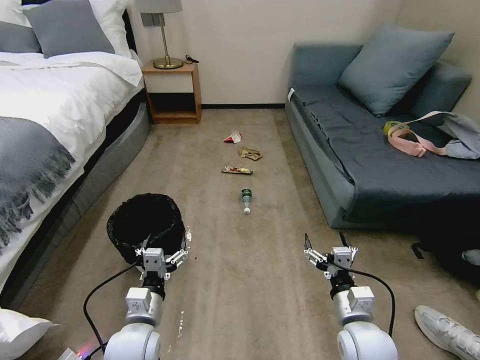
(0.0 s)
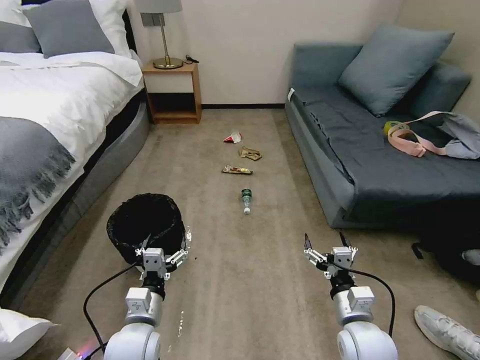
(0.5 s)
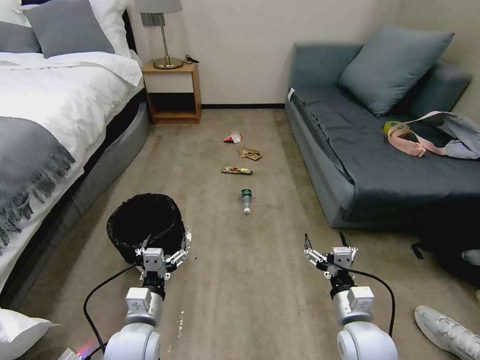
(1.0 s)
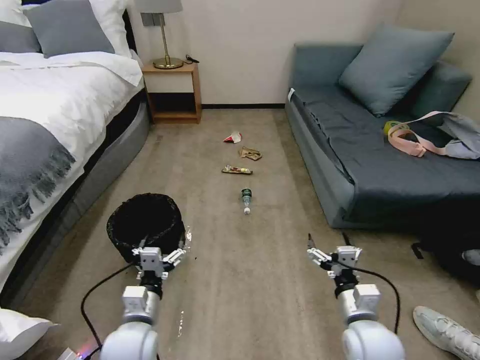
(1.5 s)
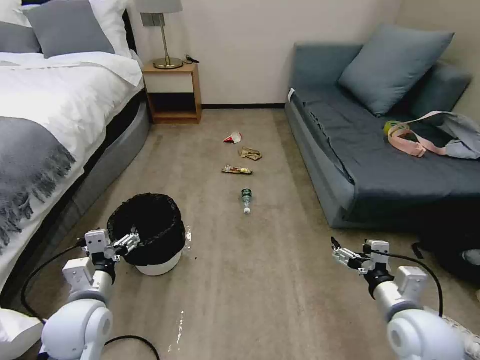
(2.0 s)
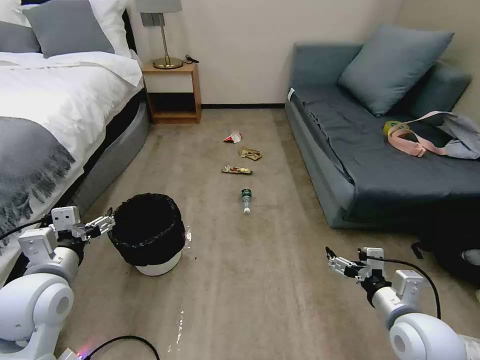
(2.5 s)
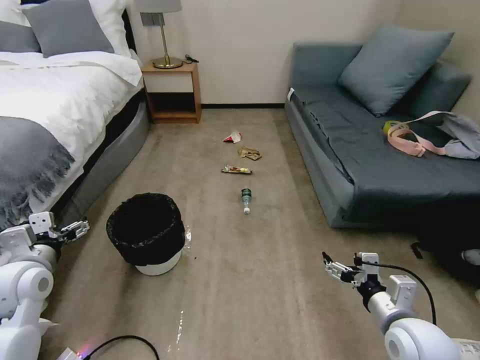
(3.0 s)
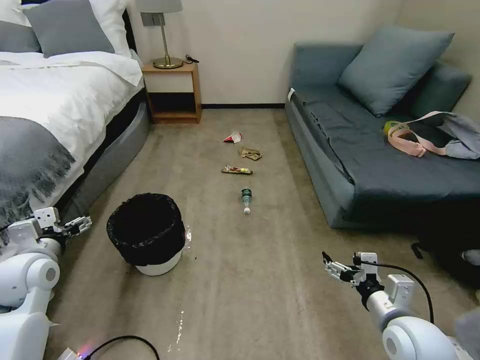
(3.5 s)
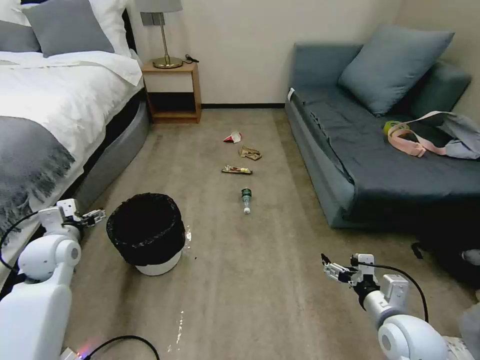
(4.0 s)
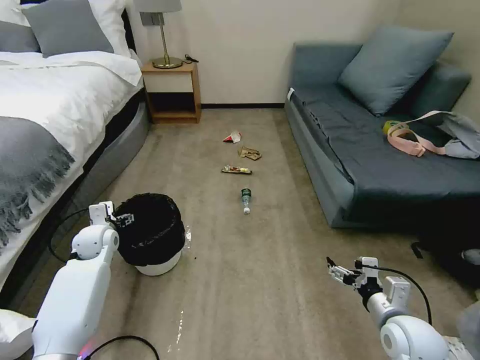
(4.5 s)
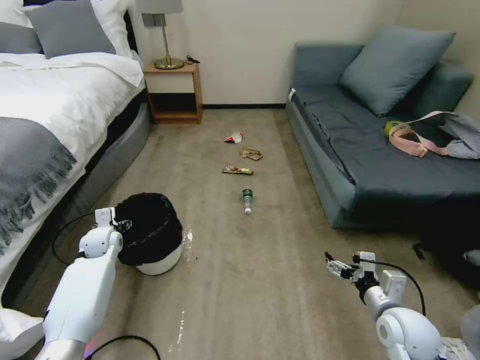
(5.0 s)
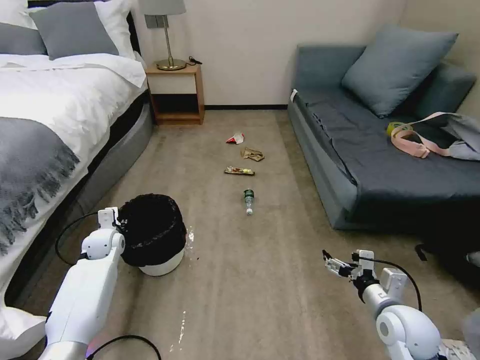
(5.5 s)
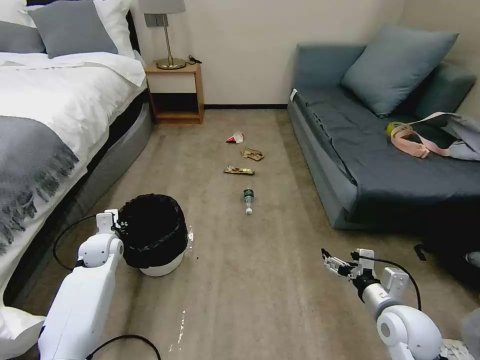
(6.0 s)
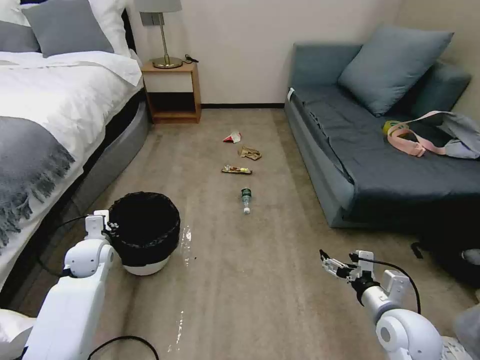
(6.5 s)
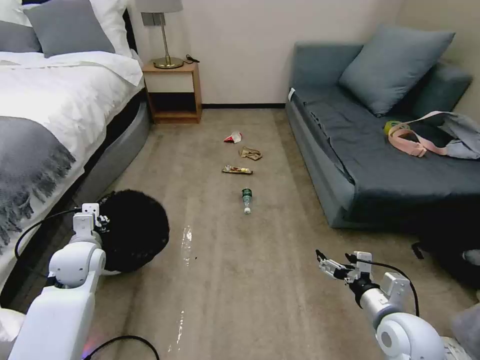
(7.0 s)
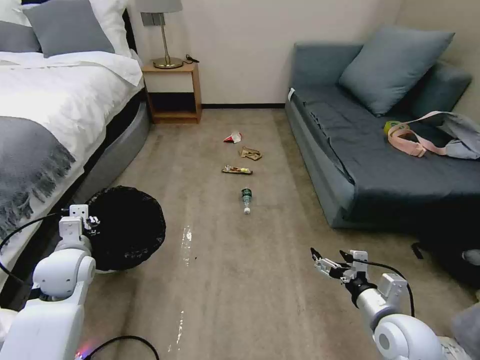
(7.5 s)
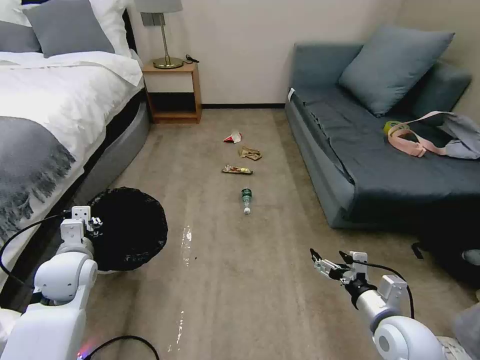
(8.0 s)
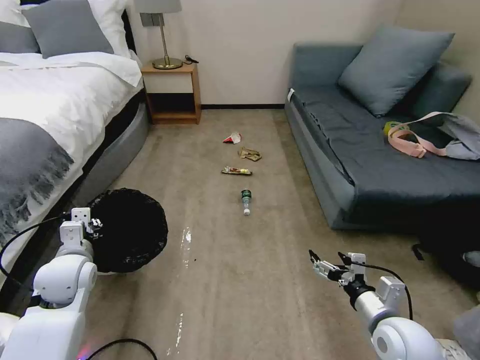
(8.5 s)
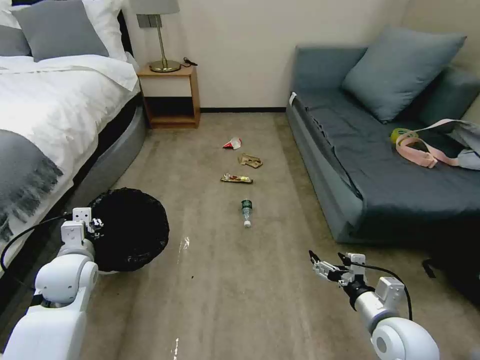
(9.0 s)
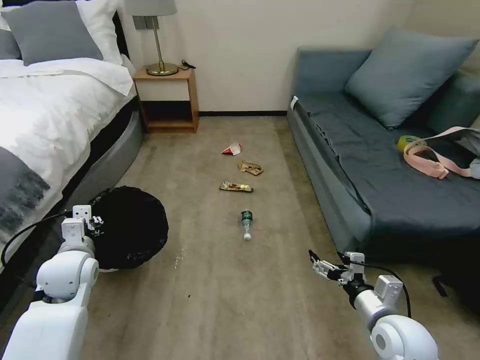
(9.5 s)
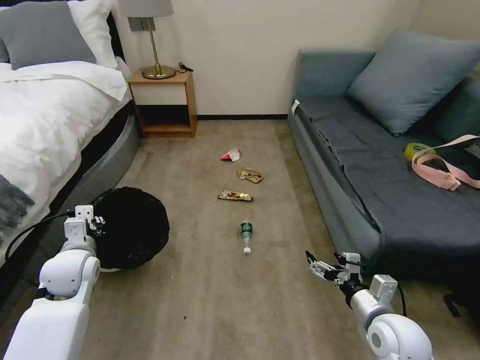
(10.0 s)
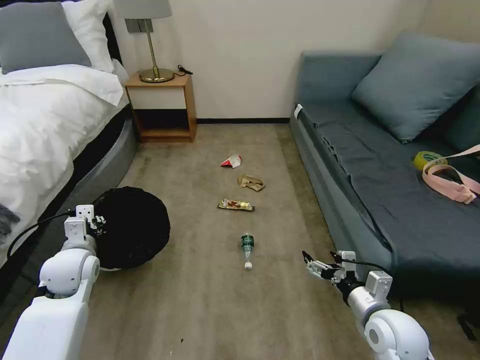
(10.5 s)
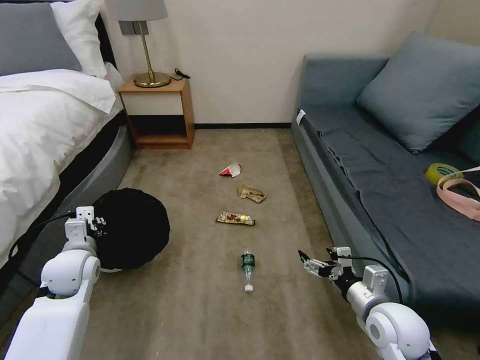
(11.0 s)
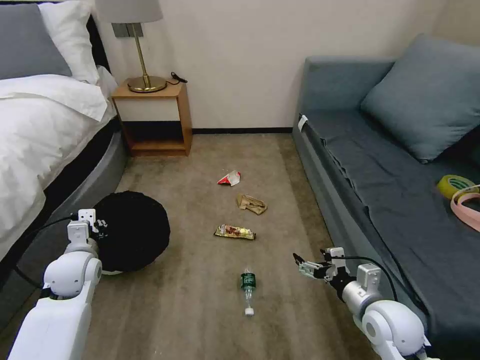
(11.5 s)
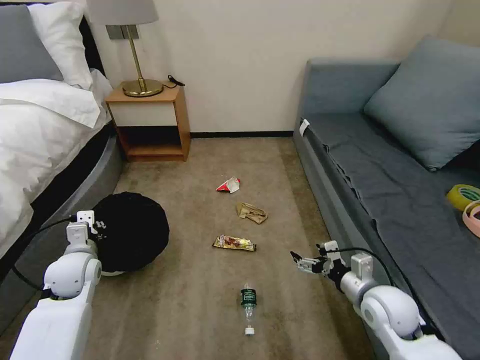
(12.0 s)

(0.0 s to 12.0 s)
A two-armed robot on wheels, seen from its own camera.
Task of the whole recording: Pick up the trash bin, then pick up the garbage on the floor and place it into the trash bin.
2.0 s - 4.0 s: The left gripper is displaced to the left and forward by about 15 cm.
4.0 s - 6.0 s: The left gripper heads downward and forward, covering about 15 cm, and closes up.
6.0 s - 8.0 s: The left gripper shifts about 15 cm backward and upward.
10.0 s - 12.0 s: The right gripper heads forward, covering about 5 cm.

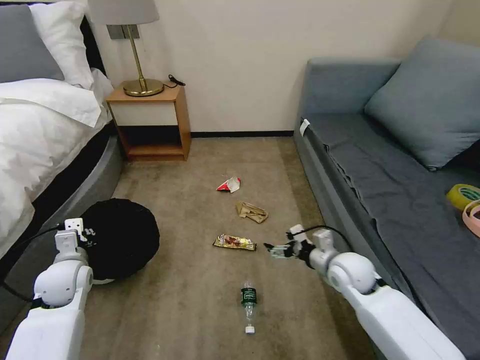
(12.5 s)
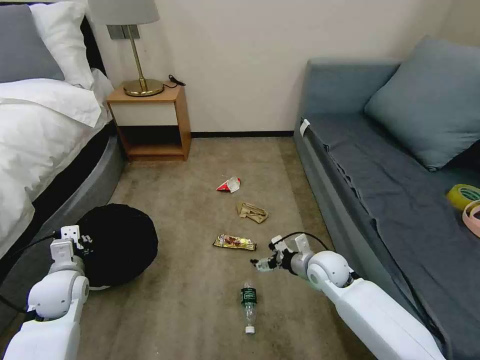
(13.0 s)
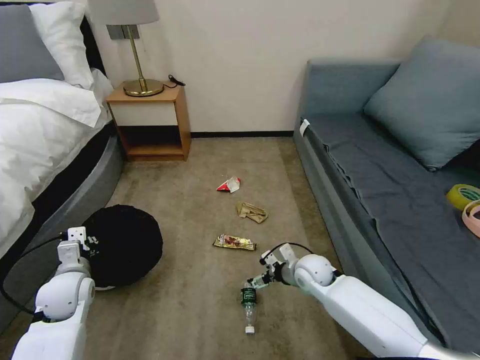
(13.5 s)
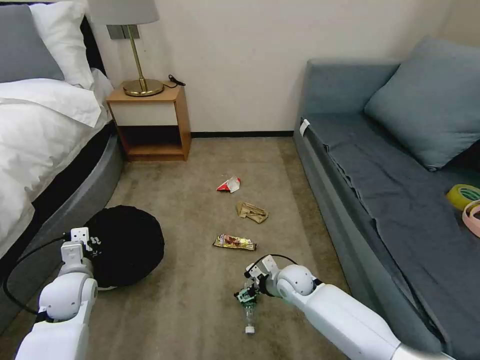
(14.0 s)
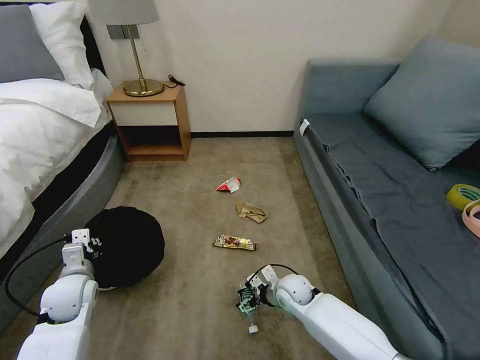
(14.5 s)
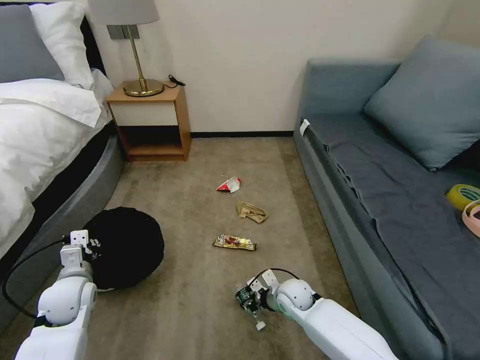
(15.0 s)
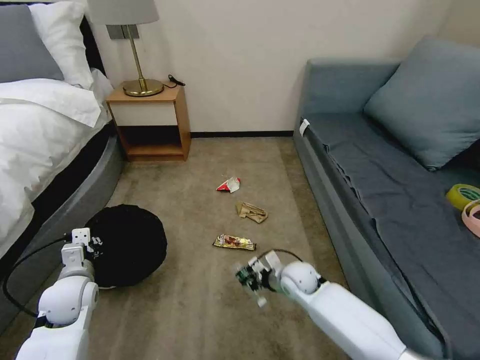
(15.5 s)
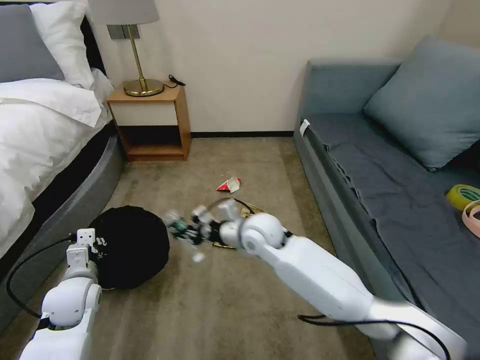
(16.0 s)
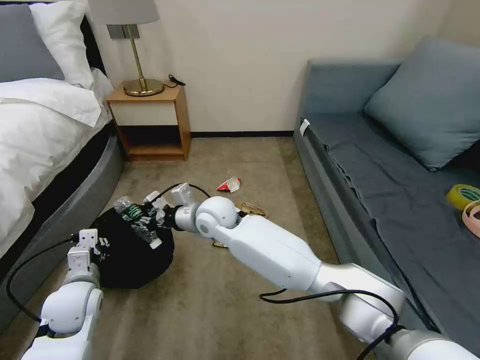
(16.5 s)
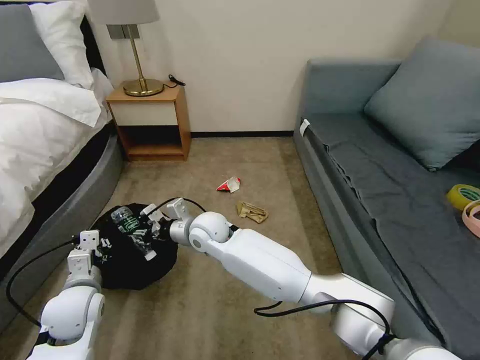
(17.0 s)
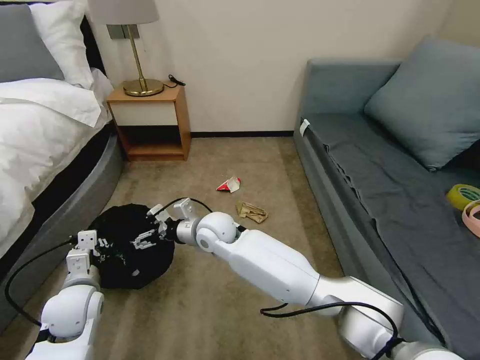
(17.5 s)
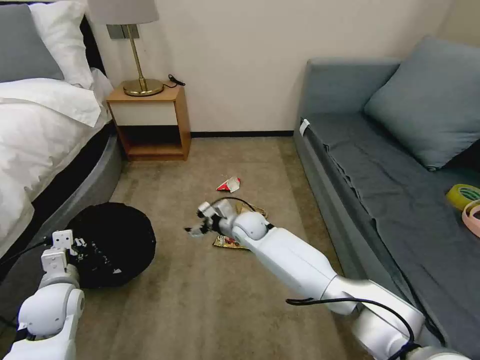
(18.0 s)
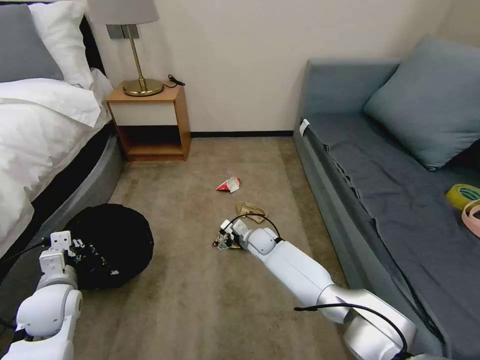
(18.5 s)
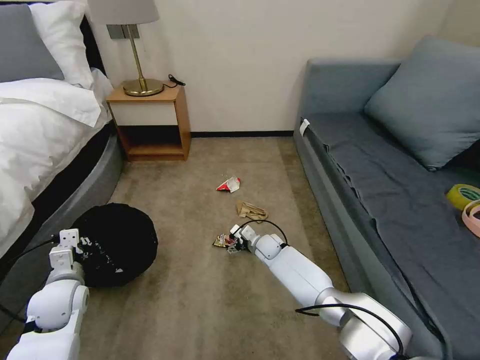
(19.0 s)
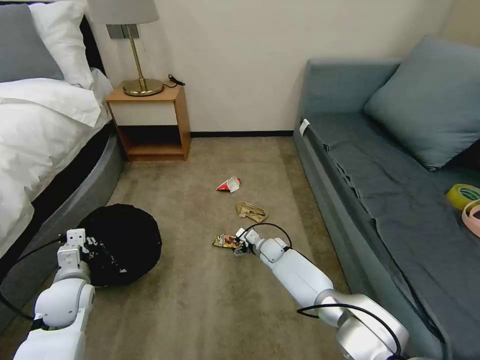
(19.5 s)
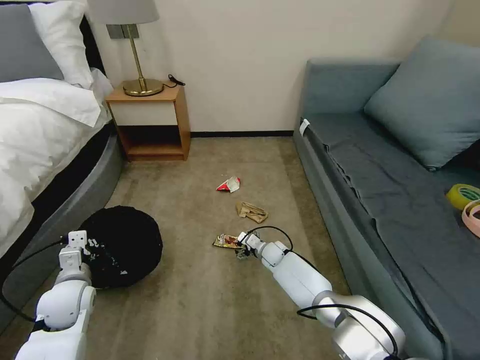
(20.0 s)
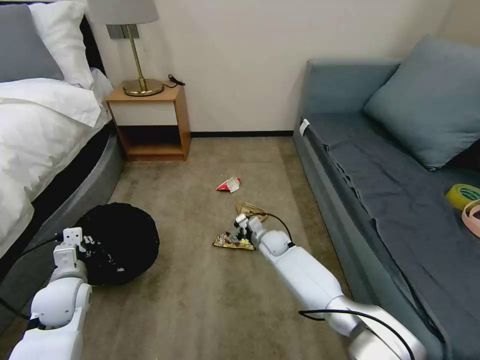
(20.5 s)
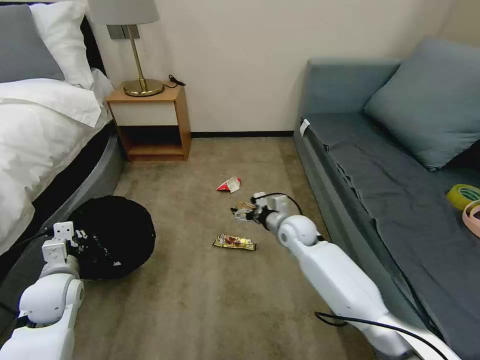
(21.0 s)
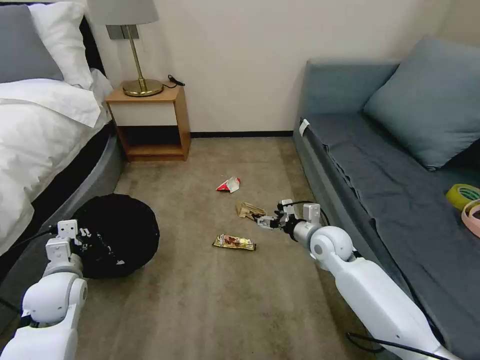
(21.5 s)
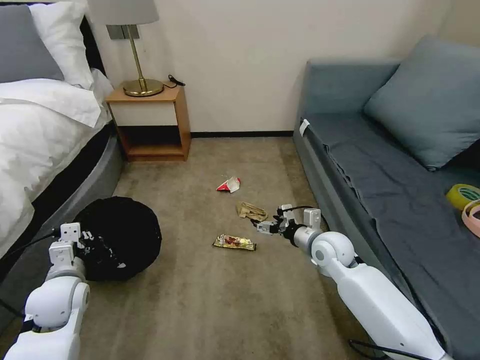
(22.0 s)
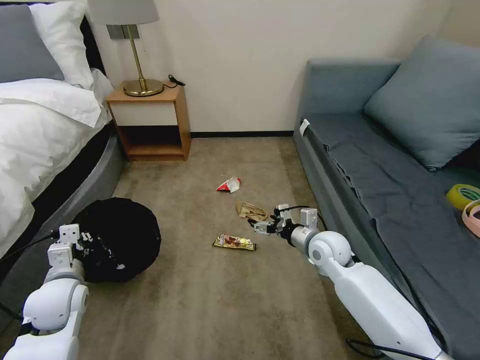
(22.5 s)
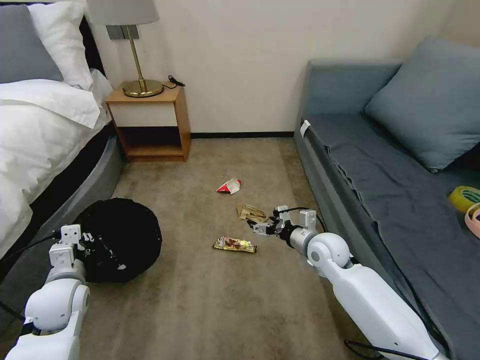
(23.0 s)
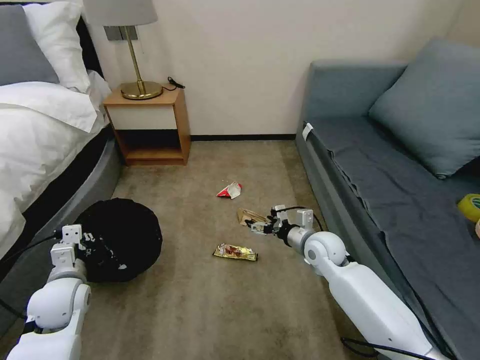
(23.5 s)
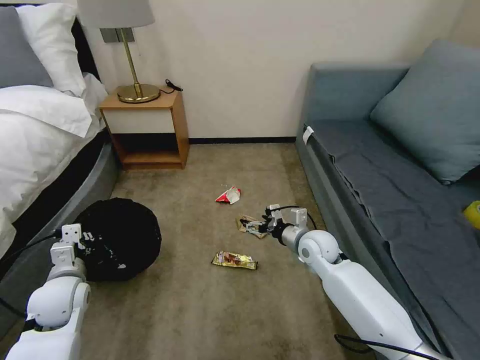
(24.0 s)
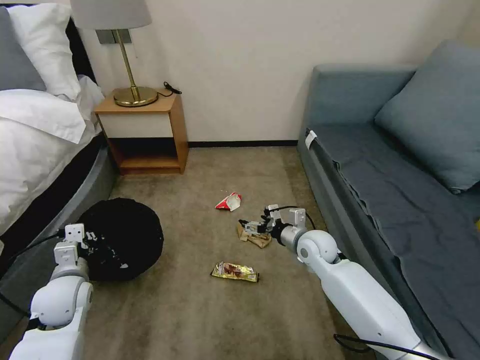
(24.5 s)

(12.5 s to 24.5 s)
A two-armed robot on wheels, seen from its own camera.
Task of the whole recording: Pick up the trash bin, then pick up the garbage on the floor and place it into the trash bin.
12.5 s - 14.5 s: The right gripper shifts approximately 20 cm downward and to the left.
14.5 s - 16.5 s: The right gripper goes approximately 30 cm upward and to the left, and closes up.
16.5 s - 18.5 s: The right gripper heads downward and to the right, covering some 25 cm, and opens up.
20.5 s - 22.5 s: The right gripper shifts approximately 20 cm upward, to the right and backward.

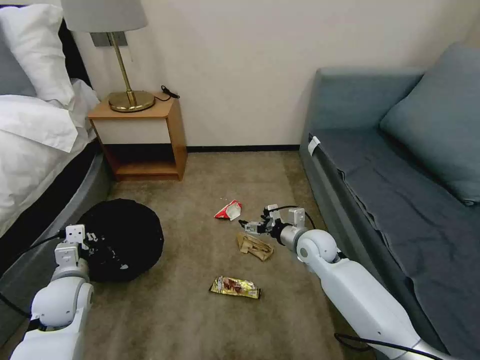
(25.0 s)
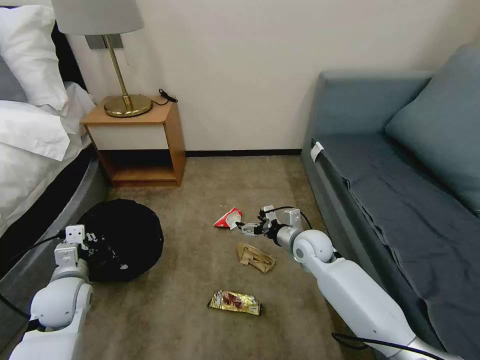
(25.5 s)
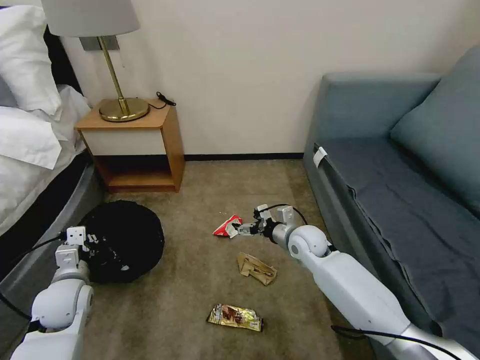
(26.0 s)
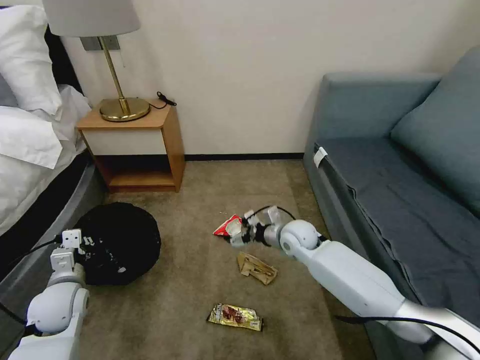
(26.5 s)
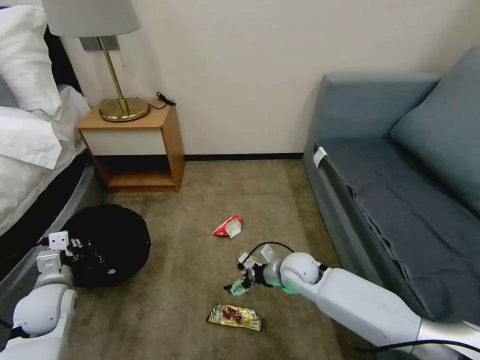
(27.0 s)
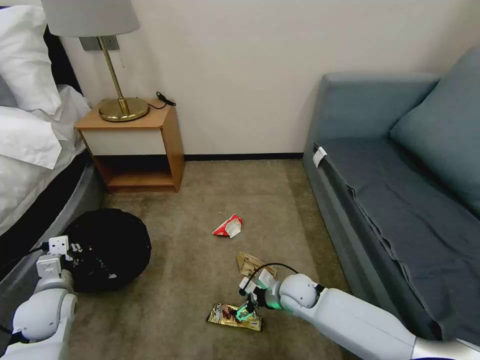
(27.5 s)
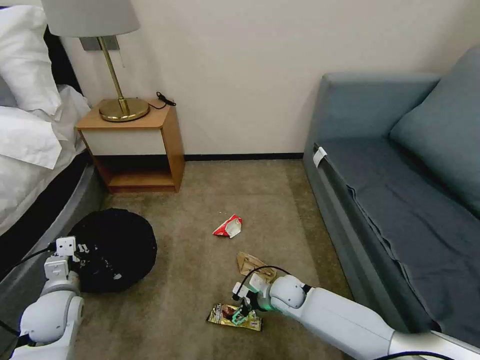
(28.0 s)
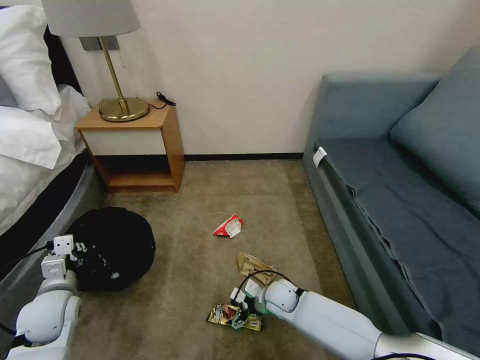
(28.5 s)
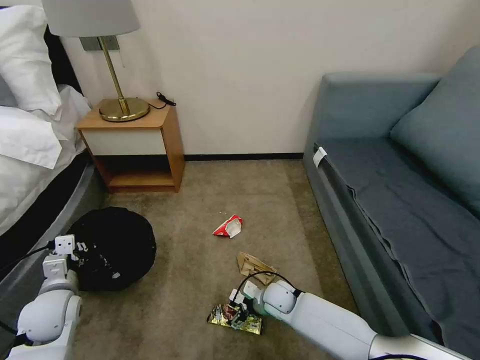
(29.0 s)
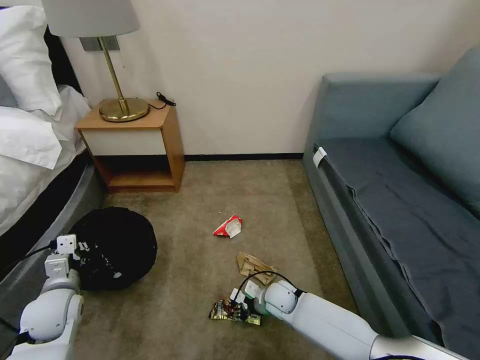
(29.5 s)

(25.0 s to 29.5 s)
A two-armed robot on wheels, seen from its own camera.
Task of the whole recording: Pick up the trash bin, then pick up the garbage on the floor and place it into the trash bin.
25.0 s - 27.0 s: The right gripper changes place by about 10 cm.
27.0 s - 29.5 s: The right gripper is displaced downward by some 10 cm, and closes up.
